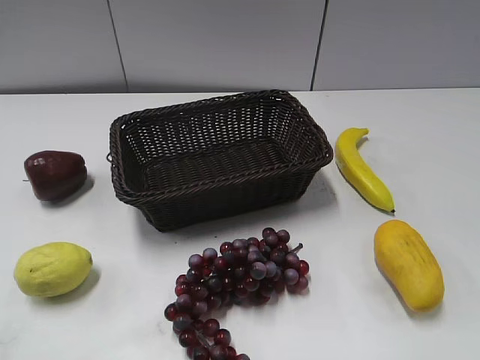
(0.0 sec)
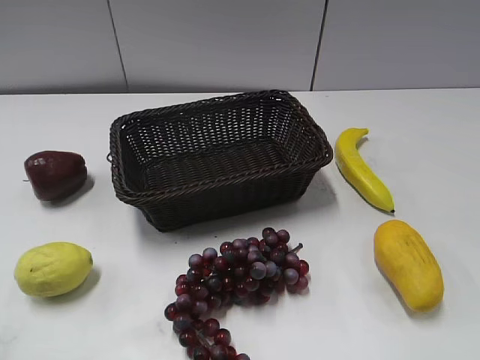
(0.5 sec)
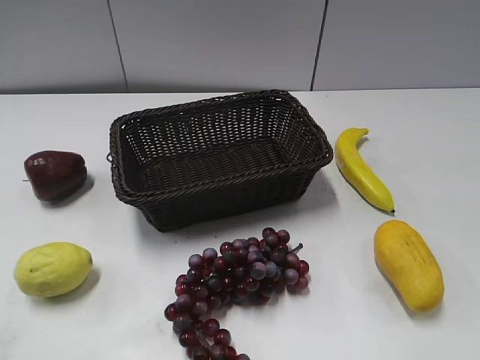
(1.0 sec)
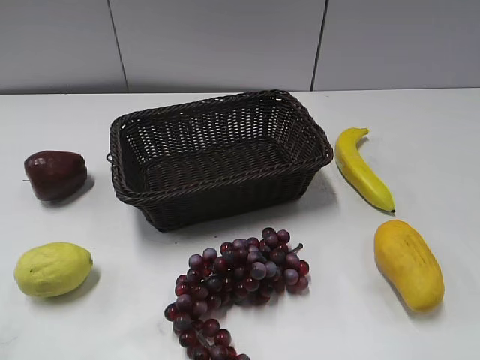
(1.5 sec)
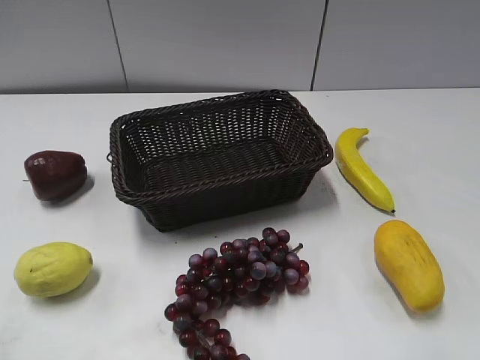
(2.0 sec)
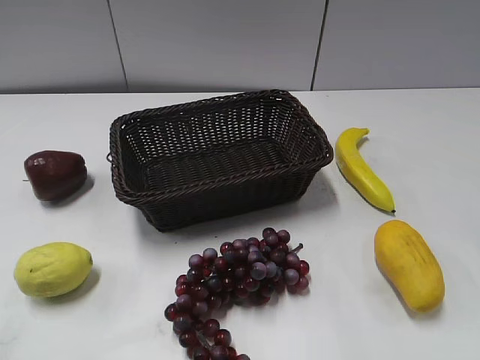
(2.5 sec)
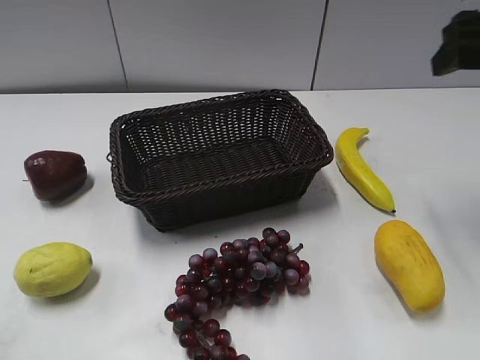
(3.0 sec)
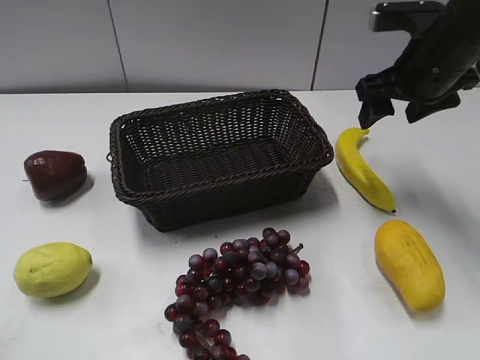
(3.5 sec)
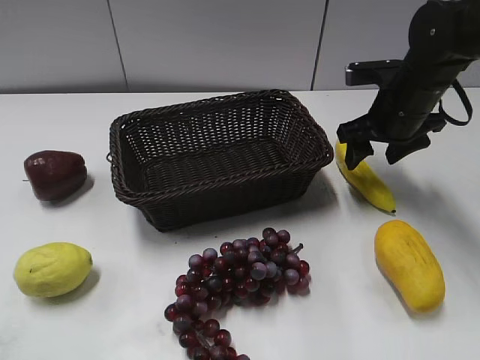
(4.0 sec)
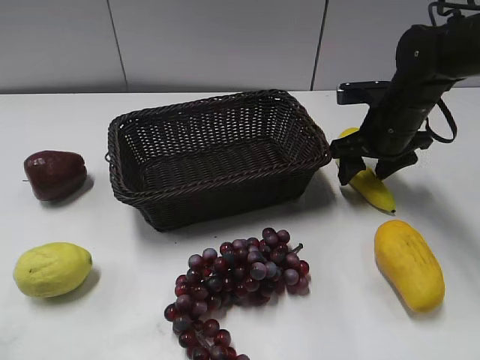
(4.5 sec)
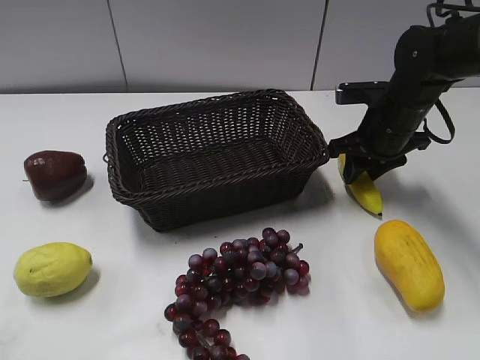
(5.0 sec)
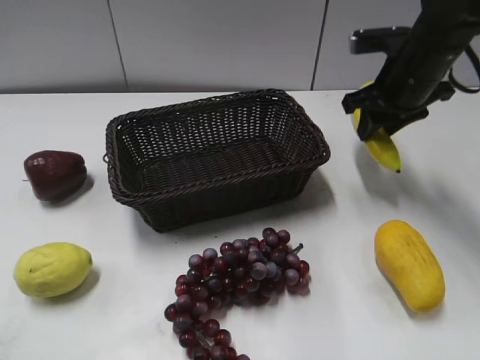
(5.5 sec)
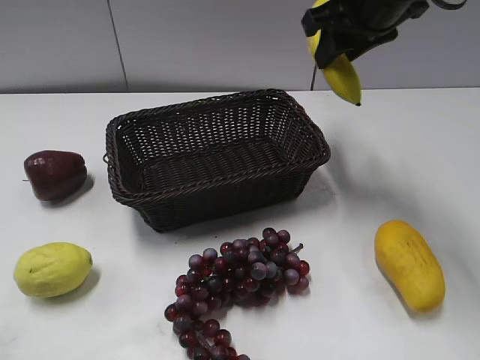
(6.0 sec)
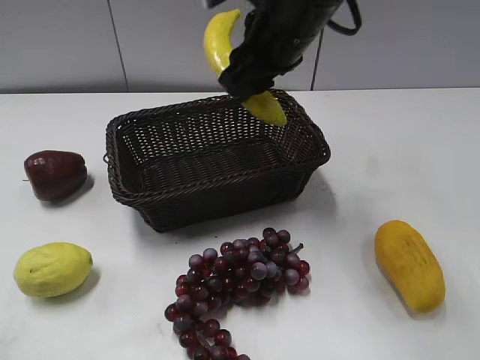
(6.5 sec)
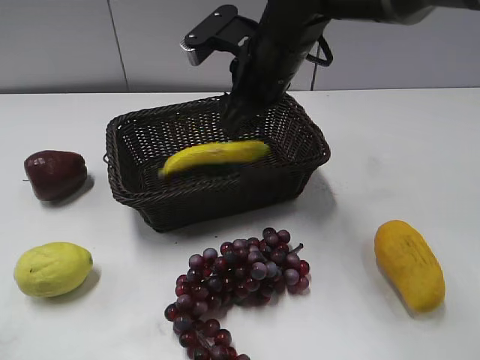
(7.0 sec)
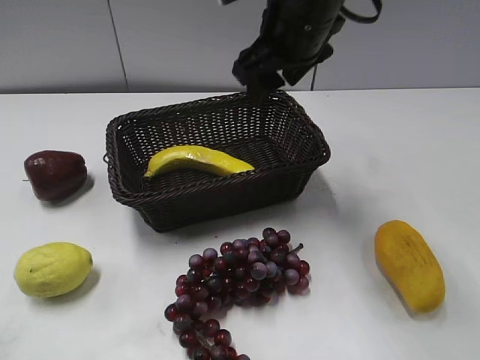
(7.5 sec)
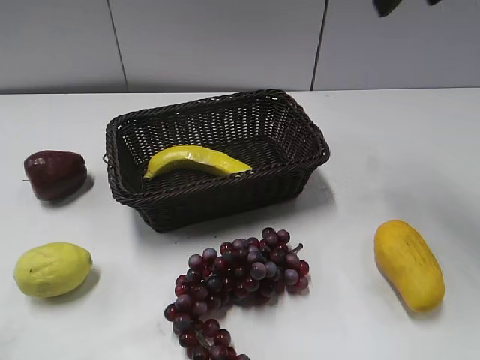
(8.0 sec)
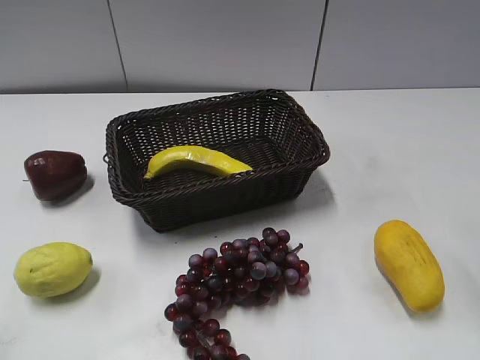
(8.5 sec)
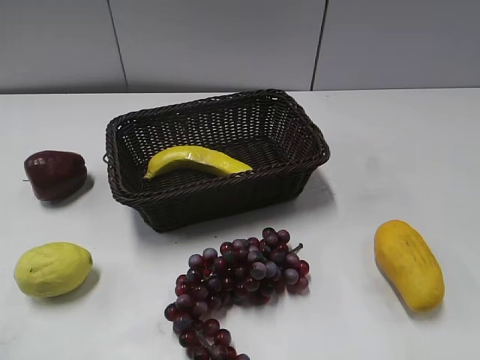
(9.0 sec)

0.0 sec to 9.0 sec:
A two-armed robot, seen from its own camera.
Step, 3.0 sec to 4.5 sec: Grasp the banana with right gripper.
Step, 5.0 sec to 7.0 sec: Place the banana in the basket with right gripper.
2.0 sec to 4.5 sec: The right gripper travels forward and downward by some 40 cm.
4.5 sec to 7.0 sec: The right gripper is displaced to the left and upward by roughly 20 cm, and closes, then opens again.
7.0 sec to 9.0 sec: The right gripper shifts roughly 40 cm backward, to the right and upward.

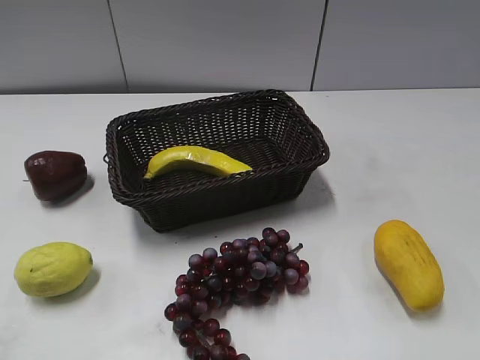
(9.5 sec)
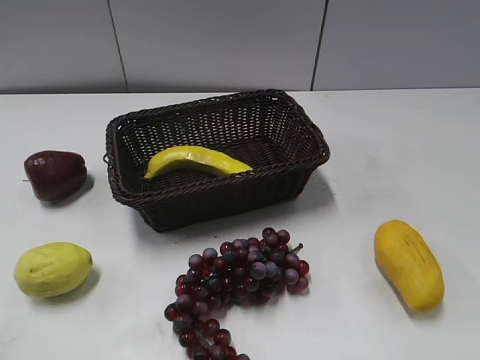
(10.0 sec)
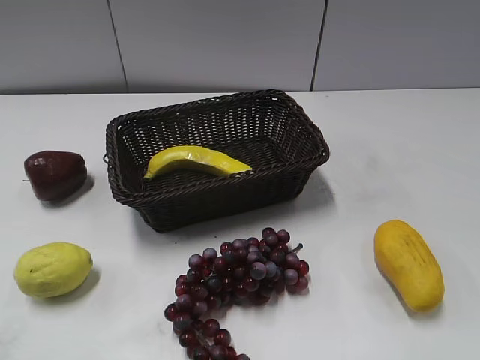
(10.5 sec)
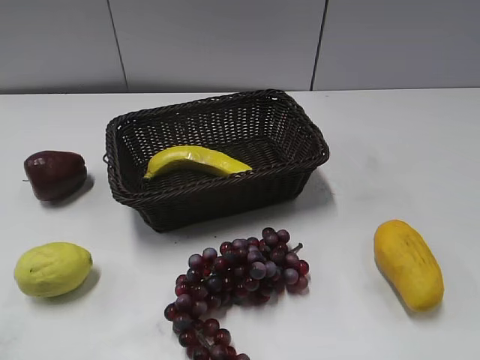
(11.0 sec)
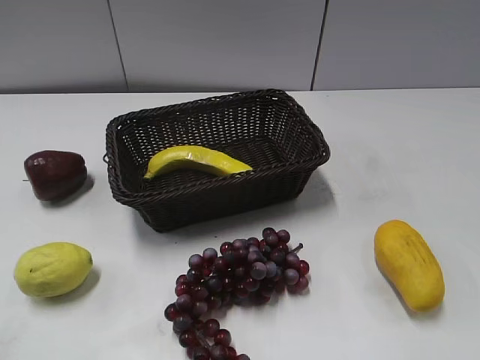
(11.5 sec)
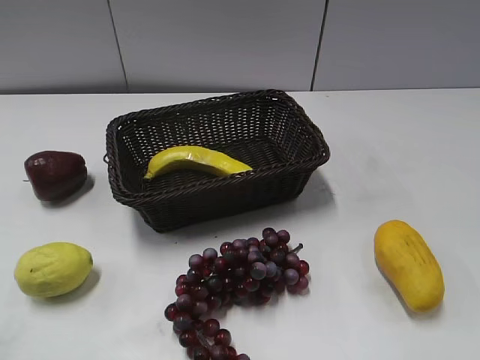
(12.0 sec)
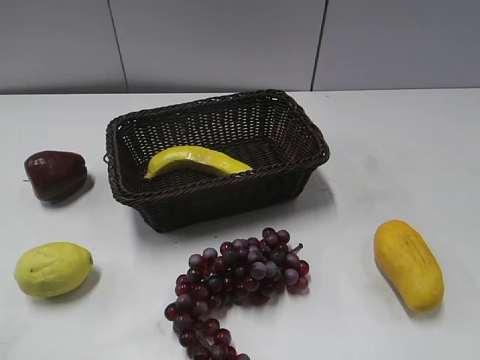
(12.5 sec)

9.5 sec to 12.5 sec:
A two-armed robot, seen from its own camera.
11.0 sec to 12.5 sec: Both grippers stay about where they are.

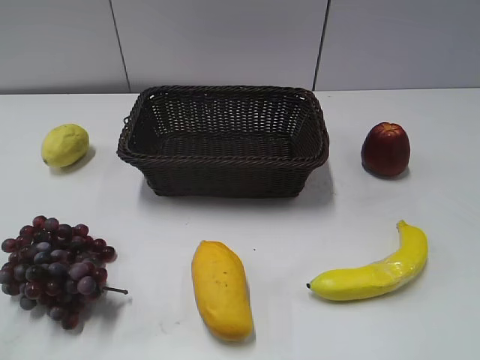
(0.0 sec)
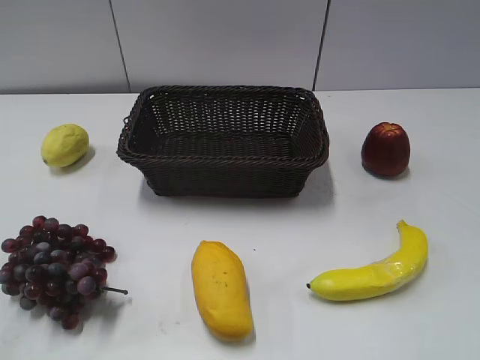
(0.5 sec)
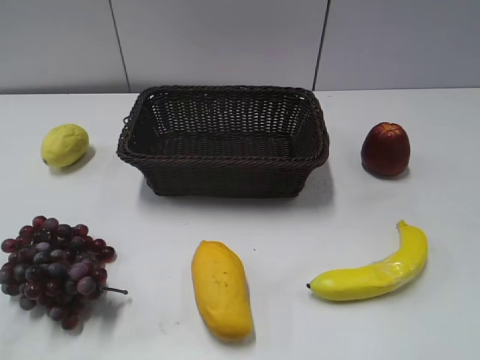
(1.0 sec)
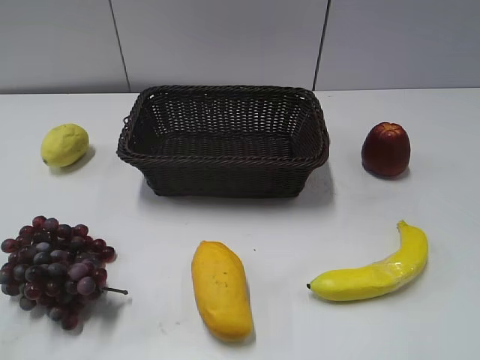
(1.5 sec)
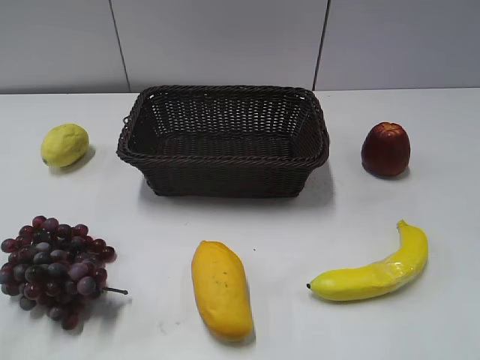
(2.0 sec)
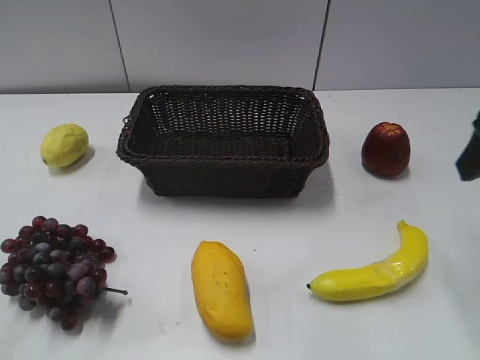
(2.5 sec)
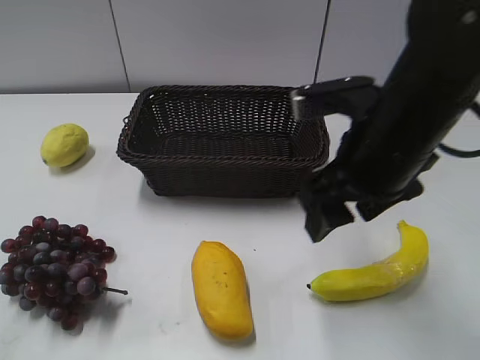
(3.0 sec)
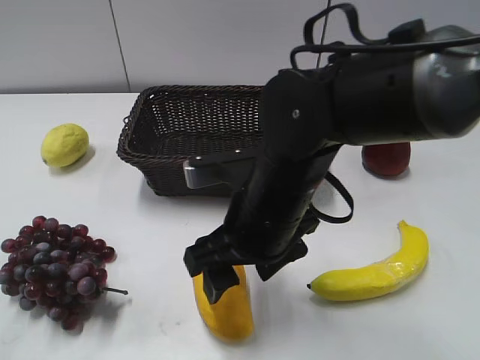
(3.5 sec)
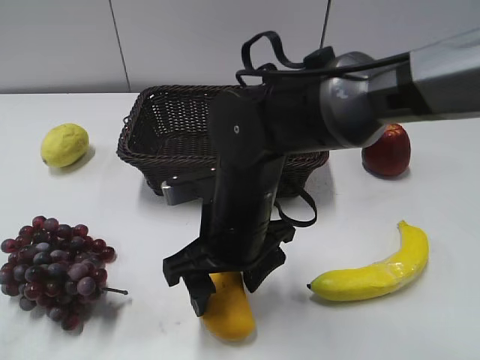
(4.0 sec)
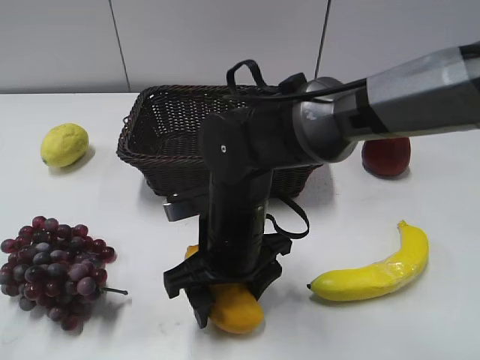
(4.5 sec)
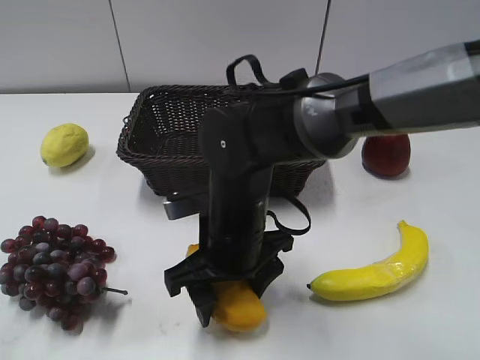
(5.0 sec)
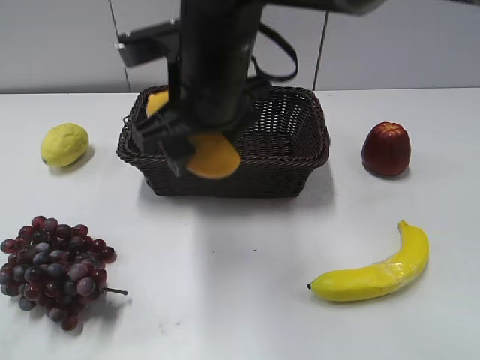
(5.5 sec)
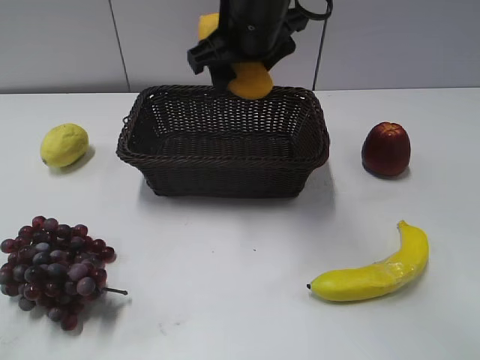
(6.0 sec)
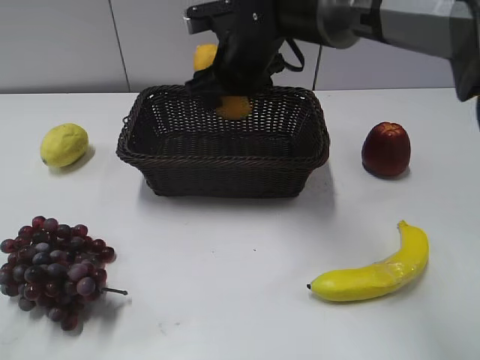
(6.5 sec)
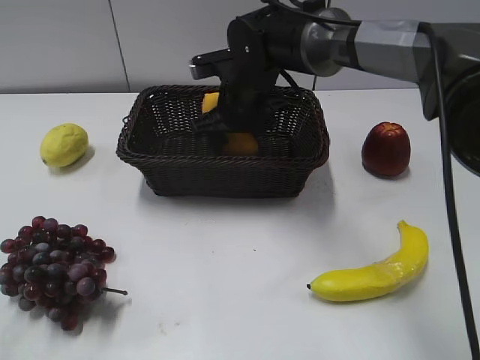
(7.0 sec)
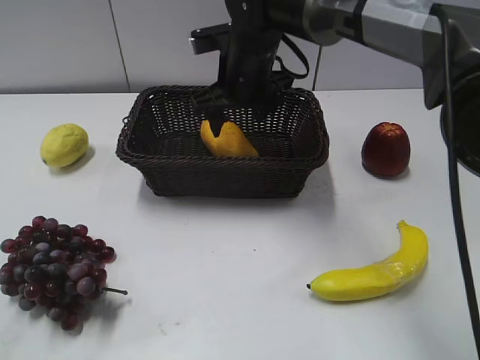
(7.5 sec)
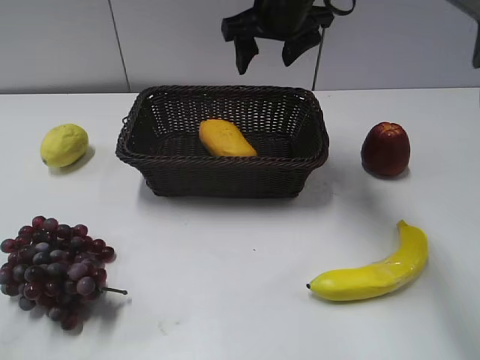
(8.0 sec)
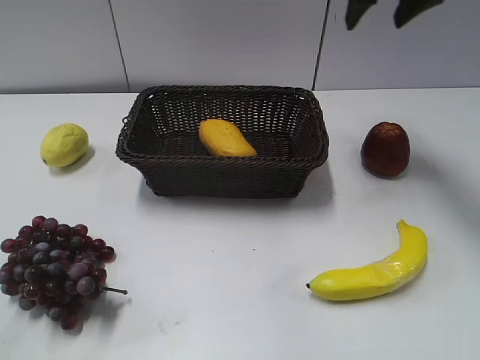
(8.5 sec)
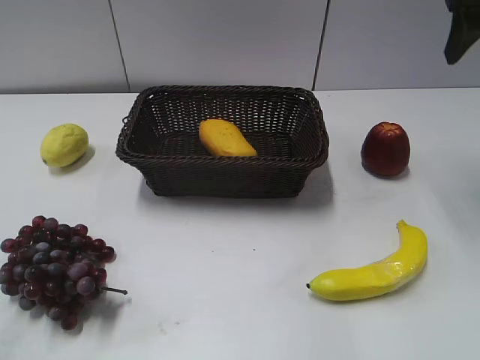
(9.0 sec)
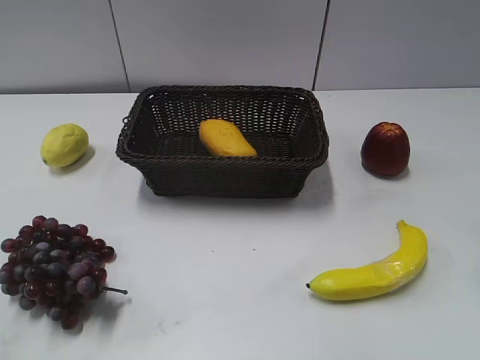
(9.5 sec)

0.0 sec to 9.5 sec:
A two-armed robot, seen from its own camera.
Step, 2.5 sec to 4.5 sec: Grasp the mango with right gripper.
Step, 5.0 sec to 7.0 sec: Place the mango in the basket with right gripper.
2.0 sec to 4.0 sec: The right gripper heads to the left and downward, covering roughly 35 cm.
4.0 sec to 5.5 sec: The right gripper travels upward and forward by approximately 15 cm, and closes up.
5.5 sec to 7.5 sec: The right gripper goes roughly 15 cm forward and downward, and opens up.
7.5 sec to 9.5 sec: The right gripper moves to the right, backward and upward, about 35 cm, and closes up.
